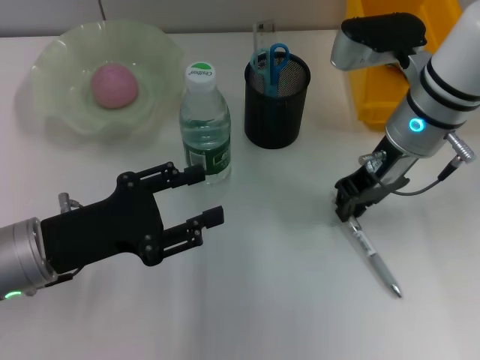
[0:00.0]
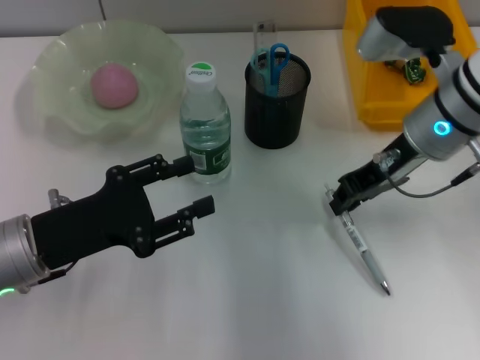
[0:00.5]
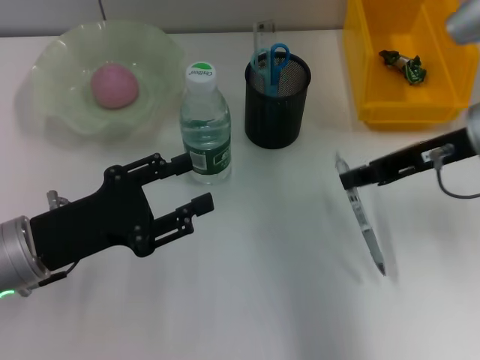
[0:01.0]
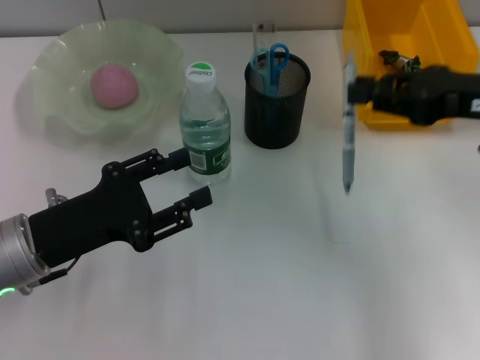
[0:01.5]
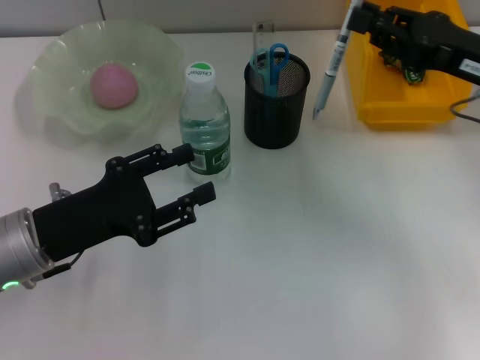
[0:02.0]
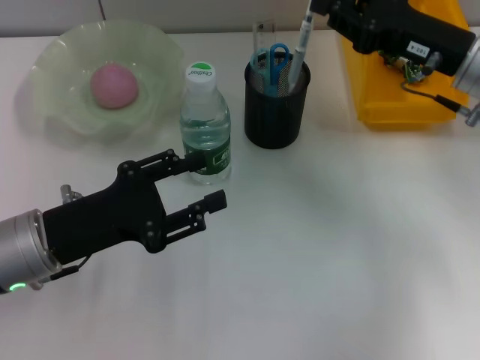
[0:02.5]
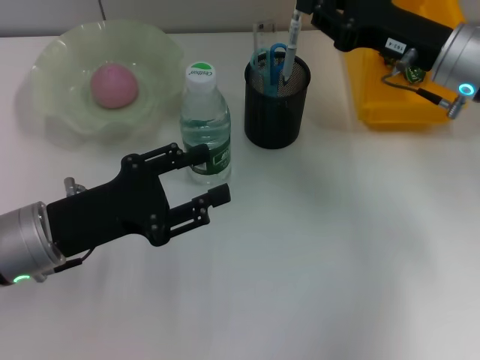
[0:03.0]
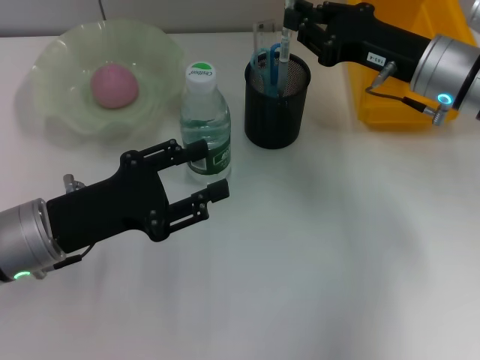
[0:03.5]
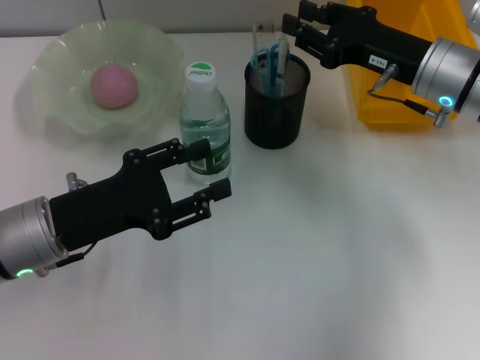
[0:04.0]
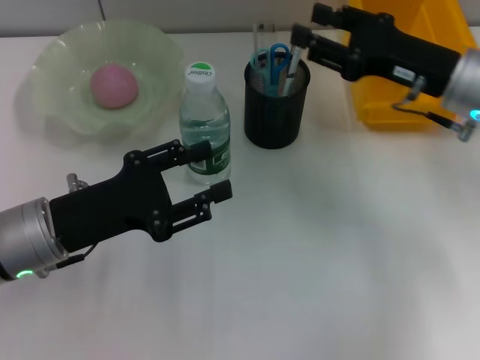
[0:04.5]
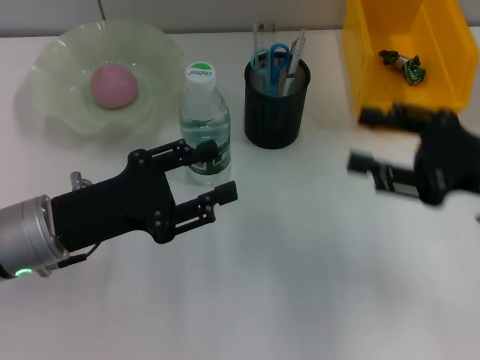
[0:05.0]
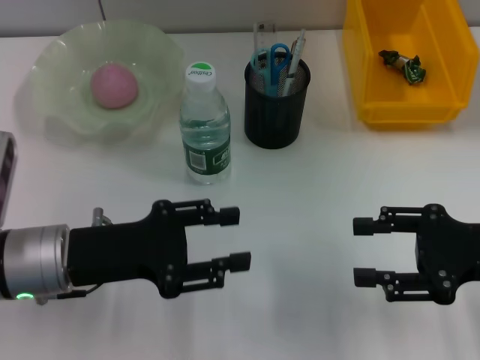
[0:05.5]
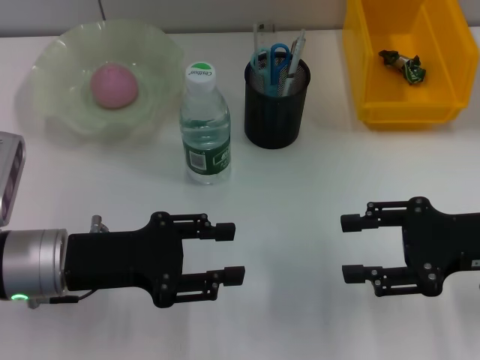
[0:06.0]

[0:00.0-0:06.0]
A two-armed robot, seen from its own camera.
Step, 0:00.0 to 0:04.0: Place the gray spring-action pen into the pen holder with the right hand.
0:00.0 to 0:02.0: The right gripper heads to the right, covering roughly 10 cm.
0:02.0 to 0:04.0: The right gripper shifts about 5 cm to the left.
0:04.0 to 0:06.0: The right gripper heads backward and to the right, covering approximately 15 cm, and opens.
